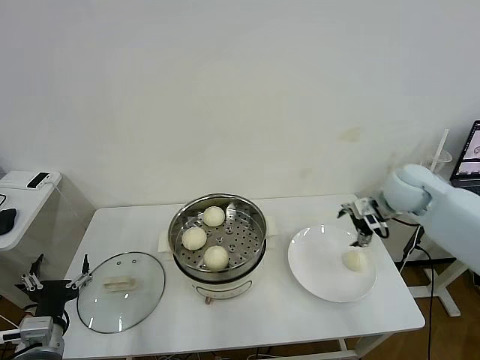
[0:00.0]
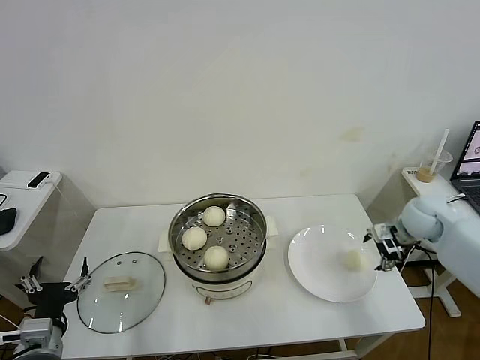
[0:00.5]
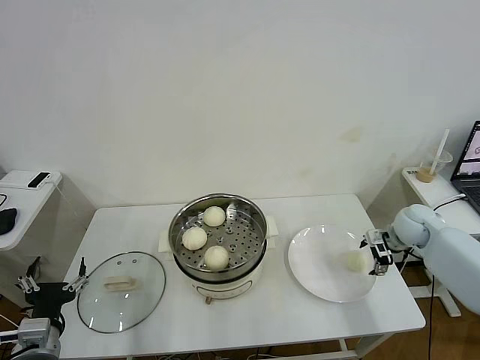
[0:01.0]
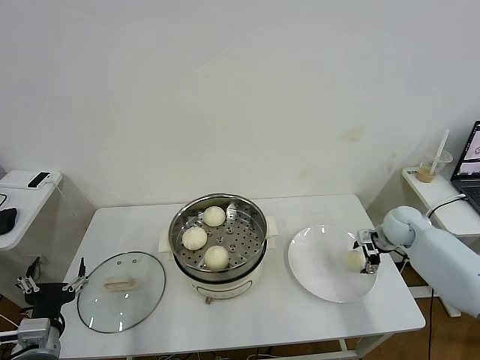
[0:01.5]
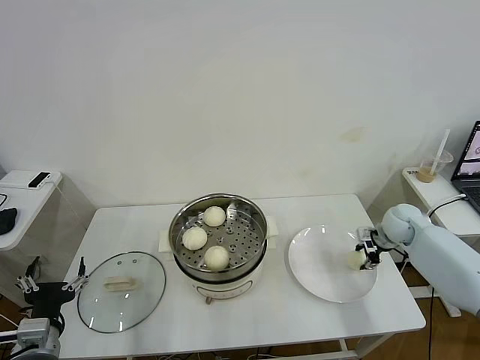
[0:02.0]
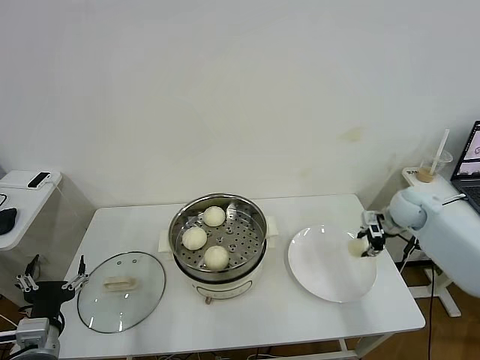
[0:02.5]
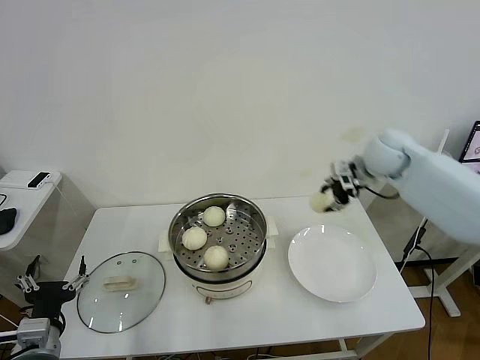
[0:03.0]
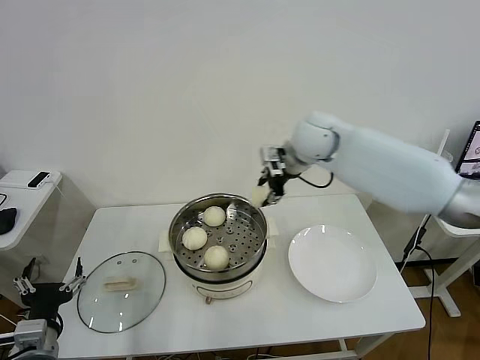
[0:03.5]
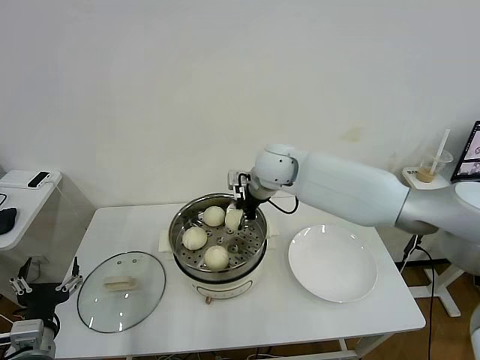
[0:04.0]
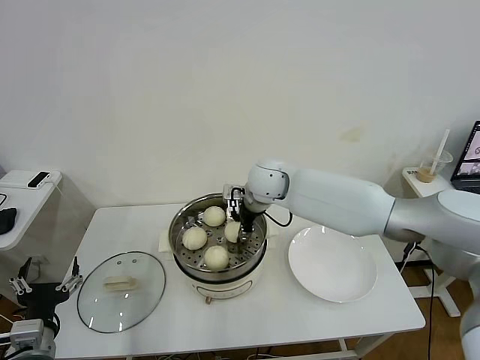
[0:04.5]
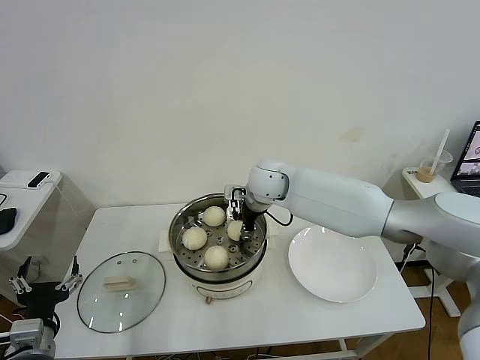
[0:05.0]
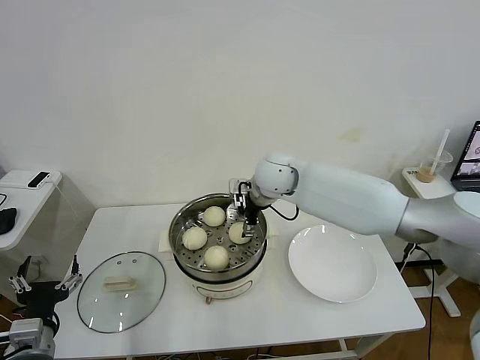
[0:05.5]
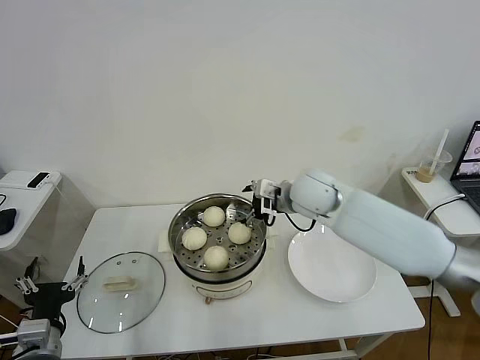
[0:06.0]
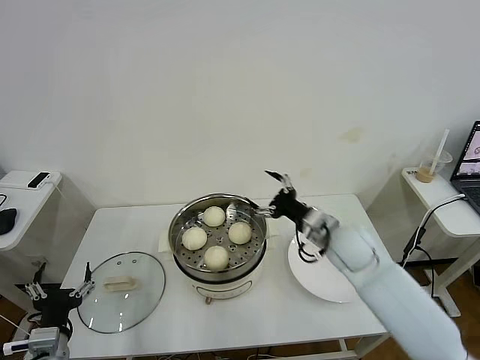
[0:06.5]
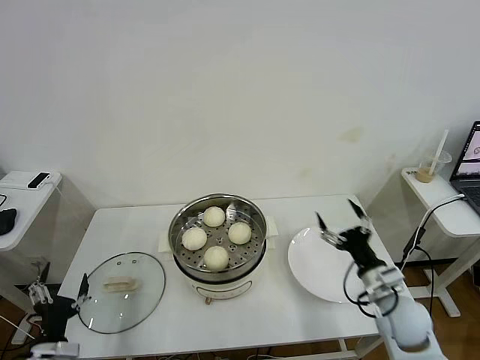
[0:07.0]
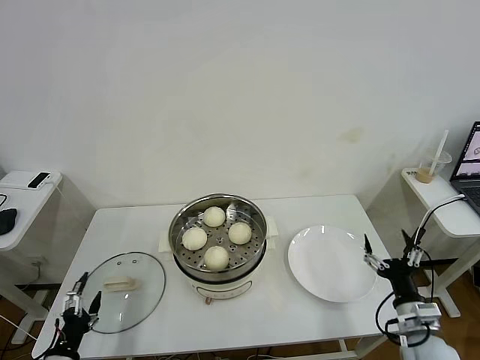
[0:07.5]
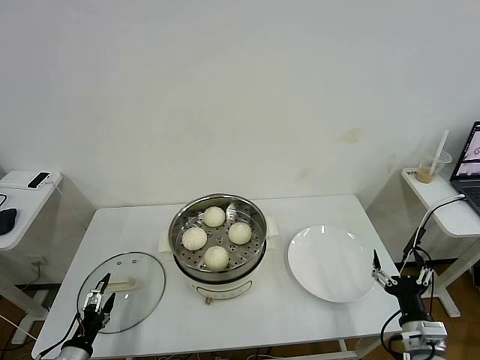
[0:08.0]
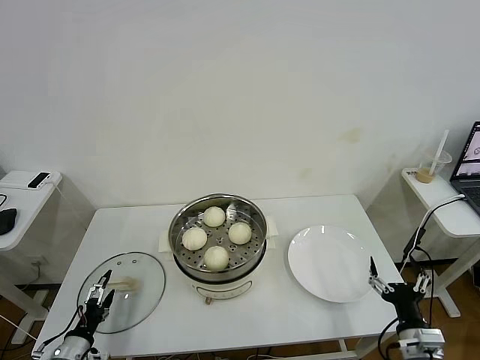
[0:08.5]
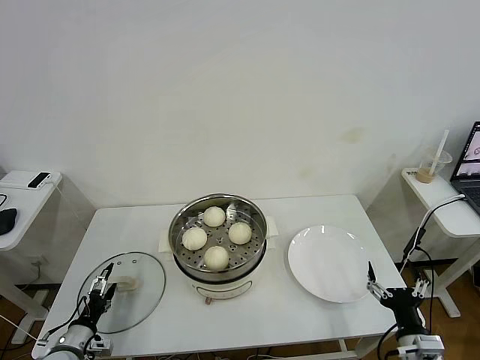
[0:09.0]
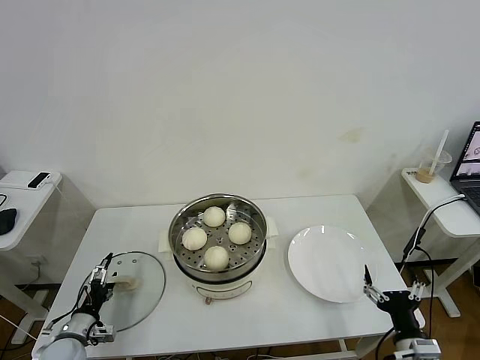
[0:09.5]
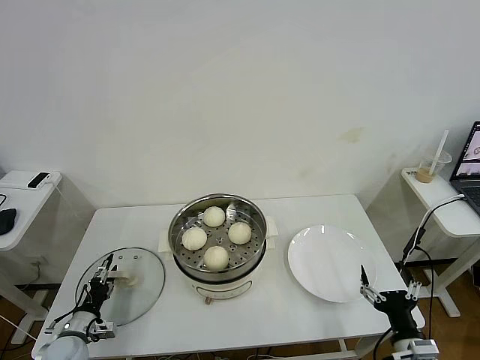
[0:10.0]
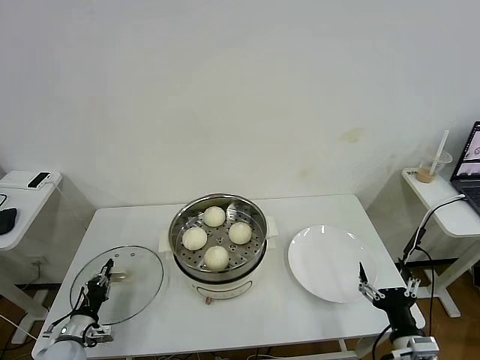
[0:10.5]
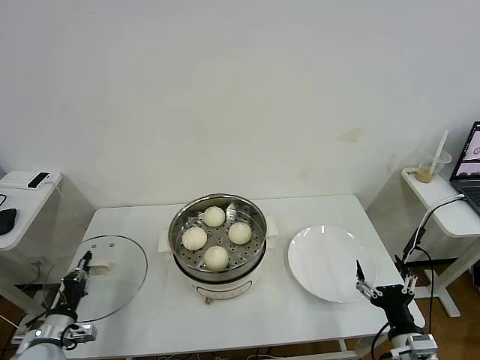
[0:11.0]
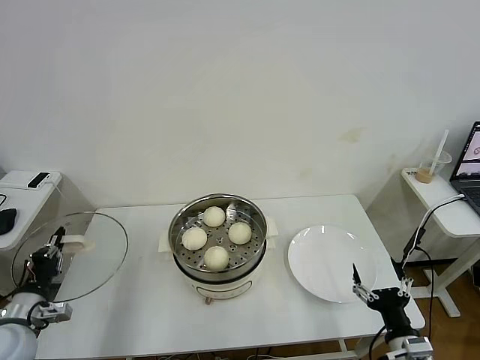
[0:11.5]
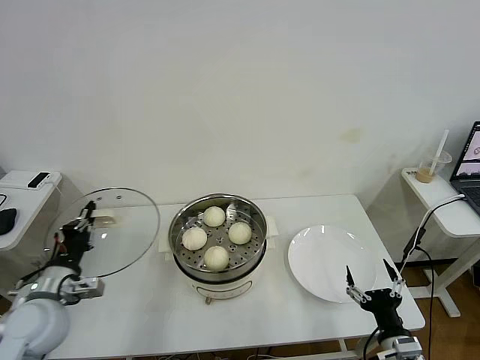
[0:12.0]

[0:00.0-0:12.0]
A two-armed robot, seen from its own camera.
Task of the whole recording: take steamed baozi put them in steamer then cover it.
Step, 0:02.5 to 0:05.0: Place the baozi on the steamer with right gripper.
Step, 0:06.0 to 0:10.5: Grasp the pot lid with left gripper.
0:00.0 to 0:02.0: The right gripper moves downward and to the right, about 15 cm, and closes its fingers.
0:02.0 to 0:04.0: The right gripper heads to the left and upward, covering some 40 cm.
0:04.0 to 0:06.0: The right gripper is displaced to the right and backward by approximately 10 cm, and opens.
0:06.0 to 0:08.0: The right gripper goes approximately 40 cm backward, to the right and downward, while the left gripper heads downward, covering about 10 cm.
0:08.0 to 0:10.0: The left gripper shifts approximately 10 cm forward.
0:10.0 to 0:12.0: The left gripper shifts approximately 20 cm upward, and closes up.

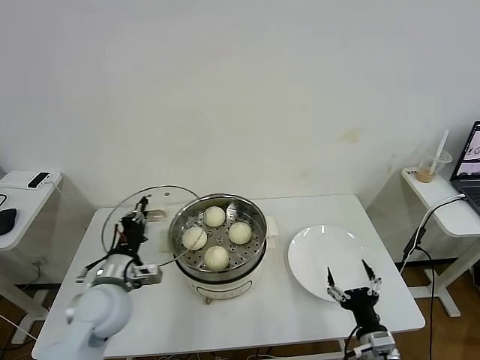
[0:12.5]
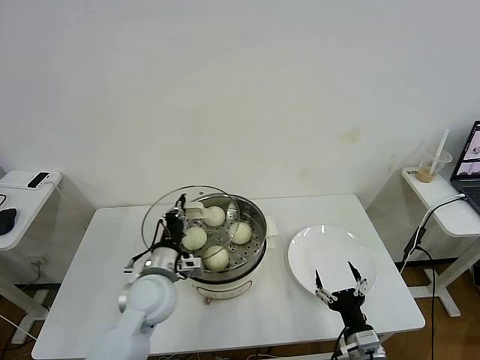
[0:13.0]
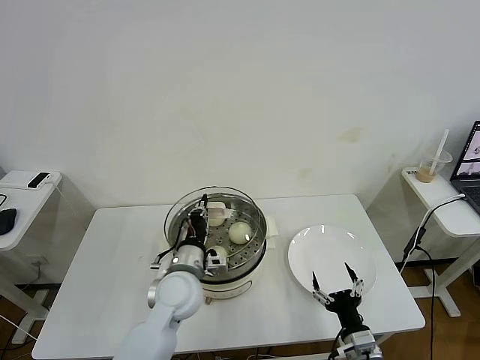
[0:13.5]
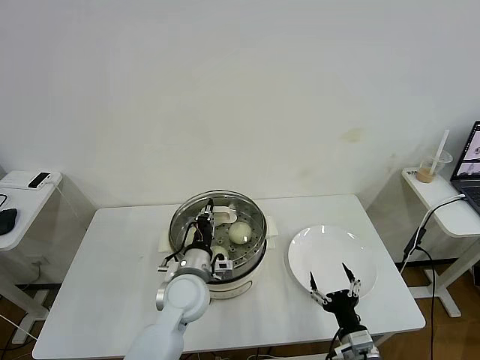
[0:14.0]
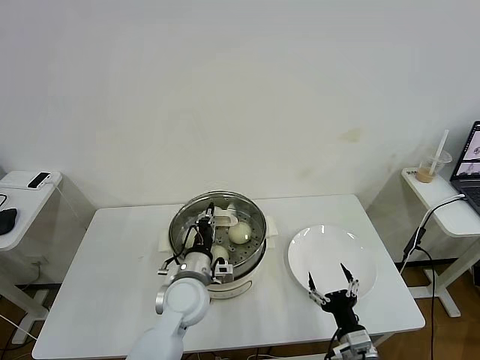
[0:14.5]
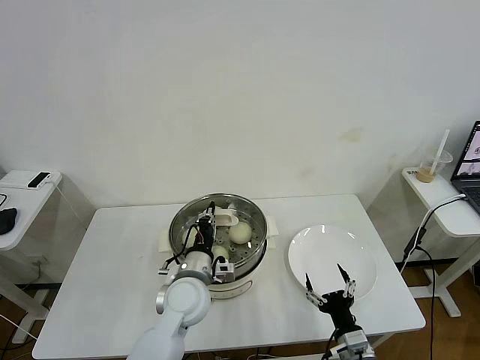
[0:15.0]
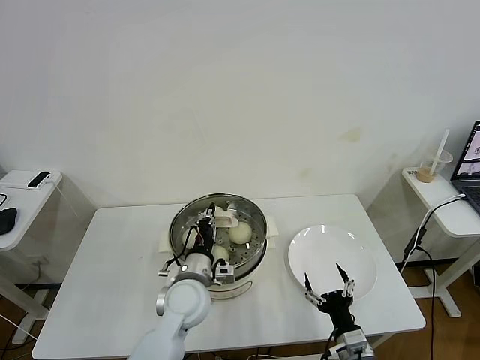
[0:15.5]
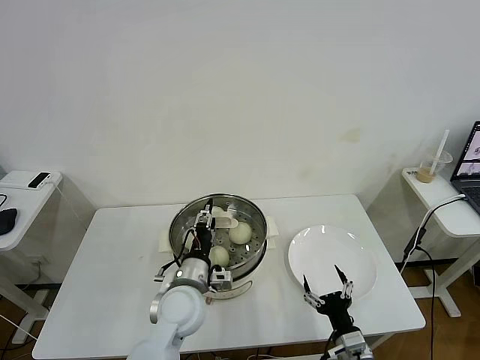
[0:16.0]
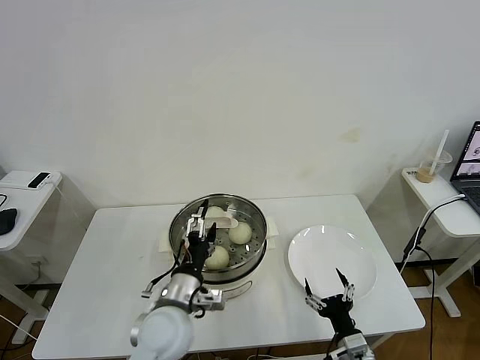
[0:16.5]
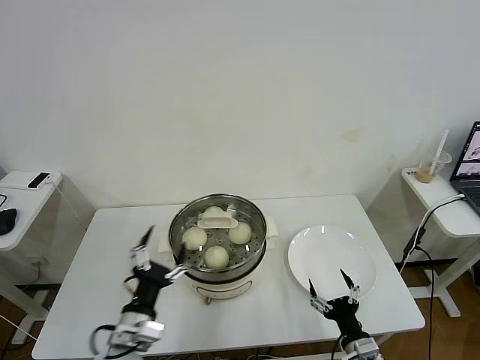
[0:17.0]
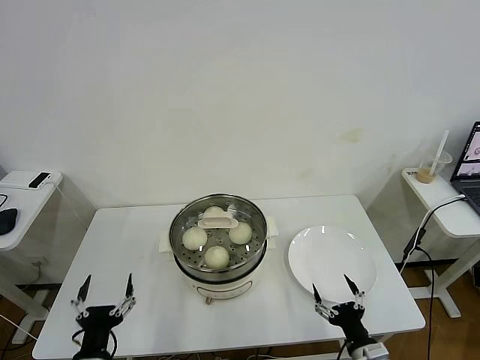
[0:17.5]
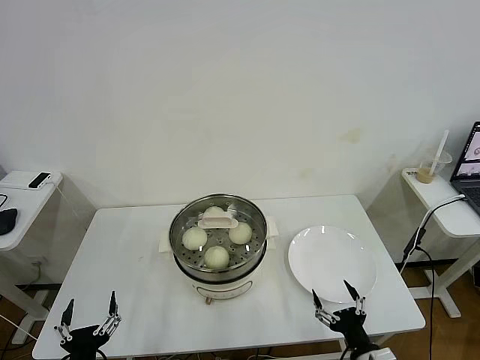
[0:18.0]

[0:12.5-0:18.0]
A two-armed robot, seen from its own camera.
Task of the whole recording: take steamed baozi put them in steamer then cover it.
Step, 0:12.5 to 0:16.0: Place the pot lid on the steamer with left gripper.
0:12.5 to 0:14.5: The left gripper travels to the right by roughly 15 cm.
0:14.5 to 0:16.0: The left gripper opens.
0:16.0 to 0:18.0: The left gripper goes about 30 cm backward and to the left, and opens. Meanwhile the right gripper moves some 5 cm.
